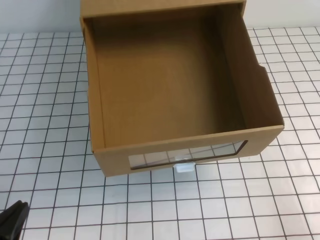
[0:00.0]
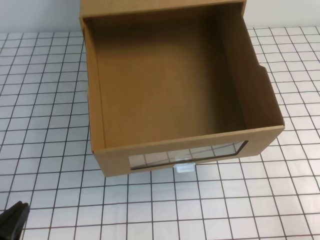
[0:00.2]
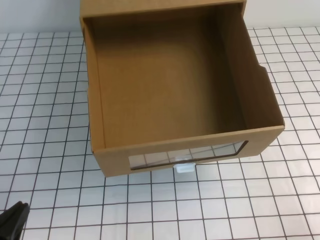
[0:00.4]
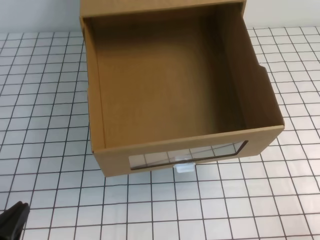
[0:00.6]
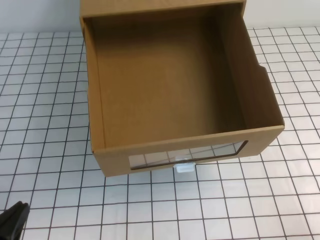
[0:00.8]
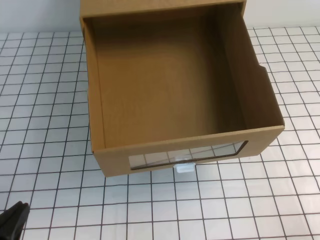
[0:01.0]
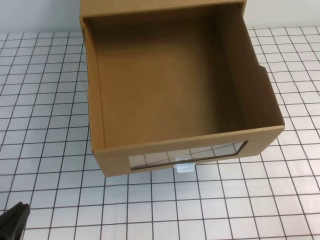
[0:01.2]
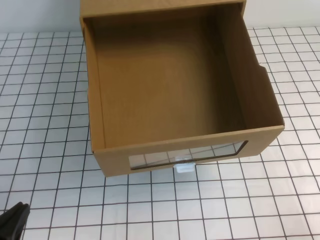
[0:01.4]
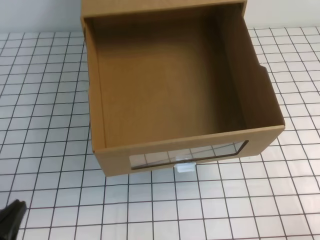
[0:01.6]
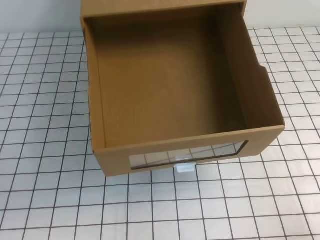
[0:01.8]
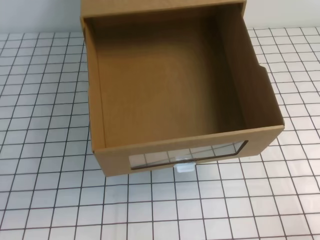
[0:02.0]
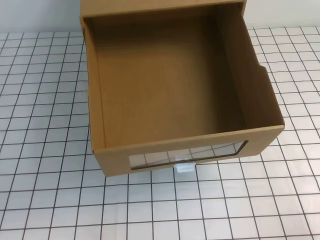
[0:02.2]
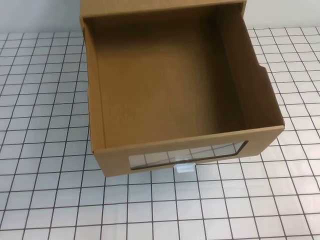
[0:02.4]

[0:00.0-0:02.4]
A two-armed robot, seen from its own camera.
Task of the whole recording: open the shoebox on the white tablecloth.
Step, 0.0 to 2.4 s: Open the shoe box.
1.2 to 2.4 s: There are only small adjustments of the grippers.

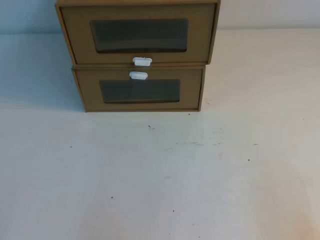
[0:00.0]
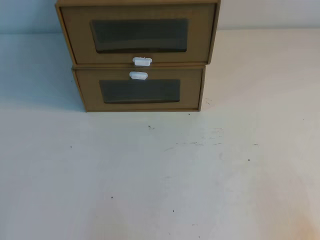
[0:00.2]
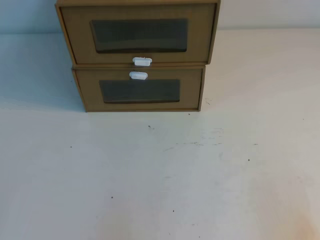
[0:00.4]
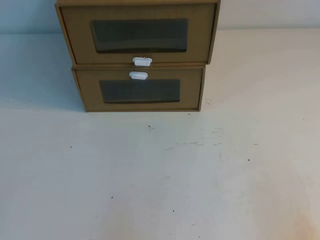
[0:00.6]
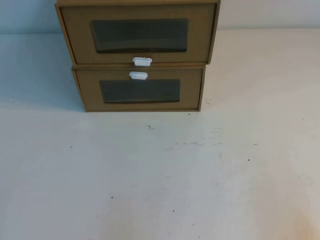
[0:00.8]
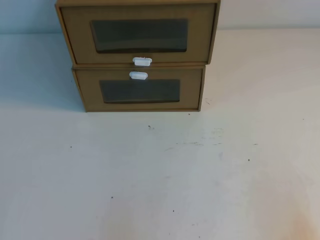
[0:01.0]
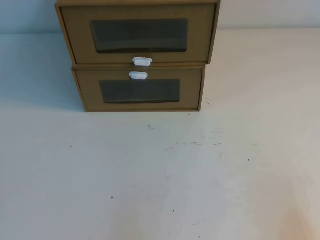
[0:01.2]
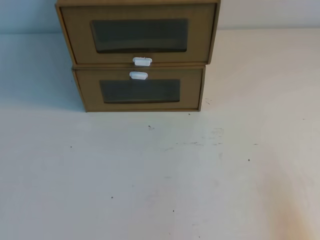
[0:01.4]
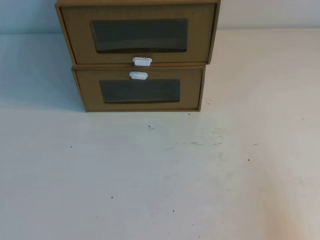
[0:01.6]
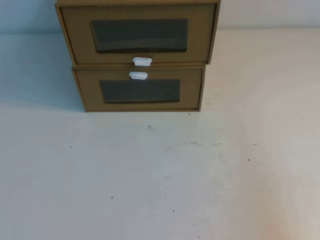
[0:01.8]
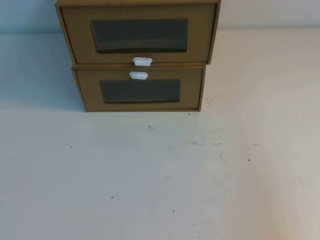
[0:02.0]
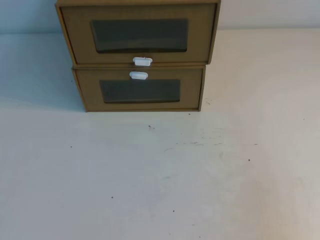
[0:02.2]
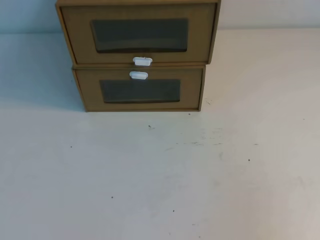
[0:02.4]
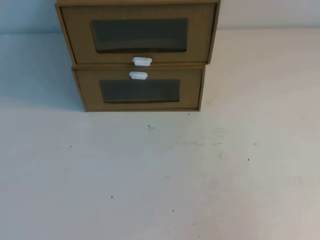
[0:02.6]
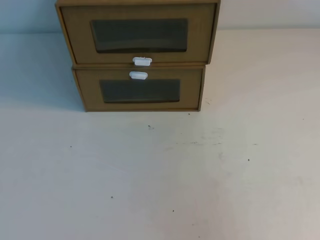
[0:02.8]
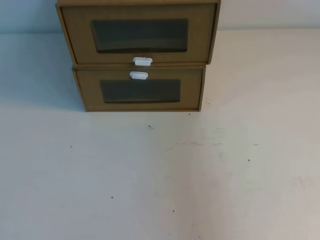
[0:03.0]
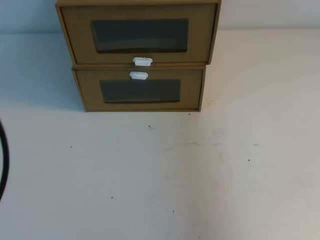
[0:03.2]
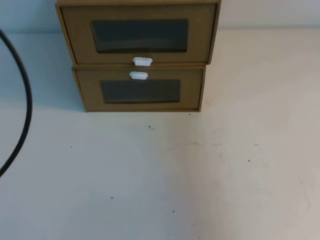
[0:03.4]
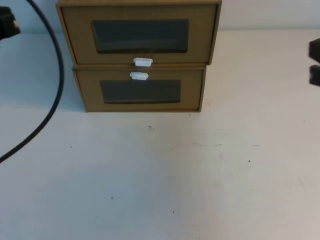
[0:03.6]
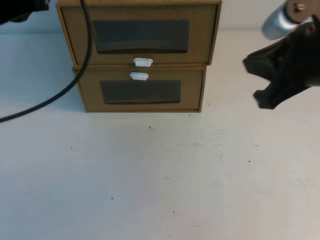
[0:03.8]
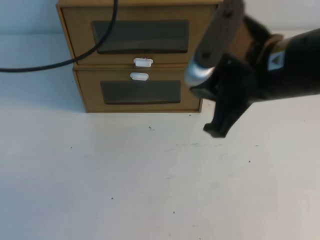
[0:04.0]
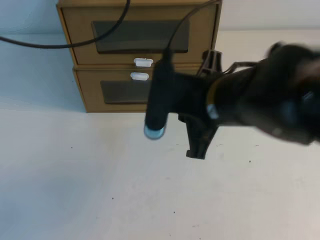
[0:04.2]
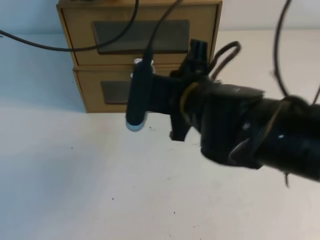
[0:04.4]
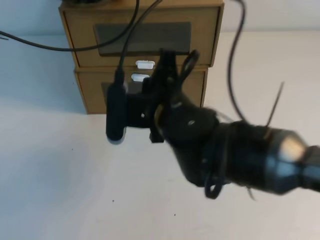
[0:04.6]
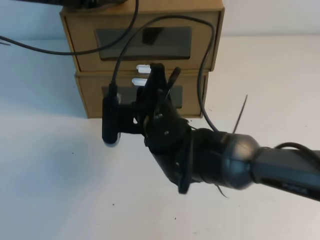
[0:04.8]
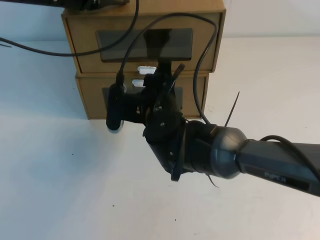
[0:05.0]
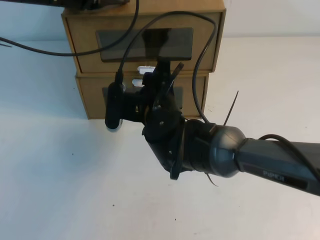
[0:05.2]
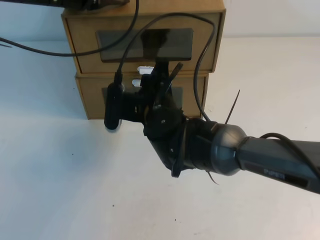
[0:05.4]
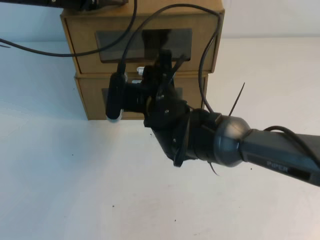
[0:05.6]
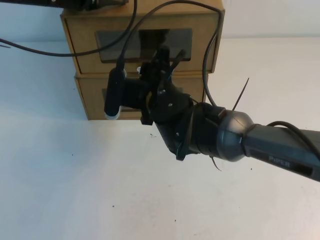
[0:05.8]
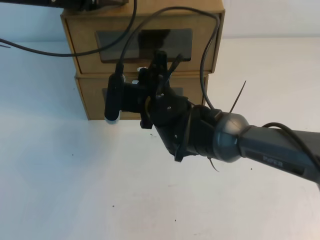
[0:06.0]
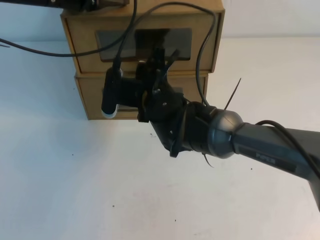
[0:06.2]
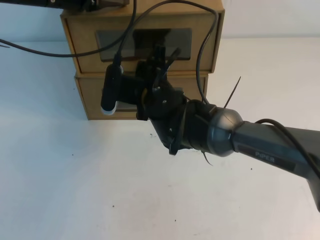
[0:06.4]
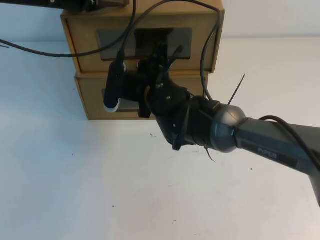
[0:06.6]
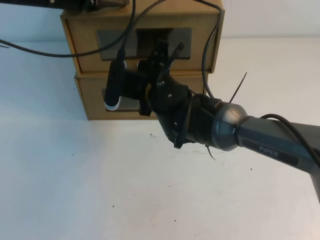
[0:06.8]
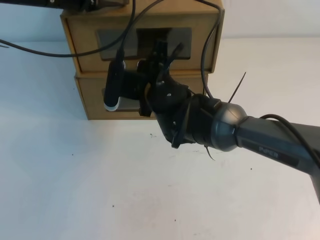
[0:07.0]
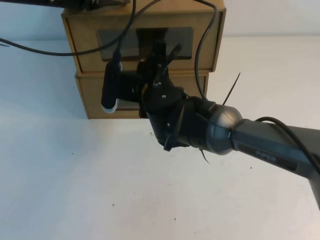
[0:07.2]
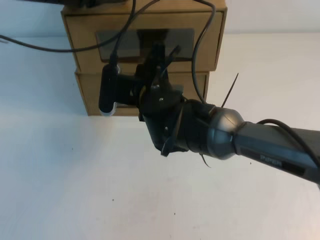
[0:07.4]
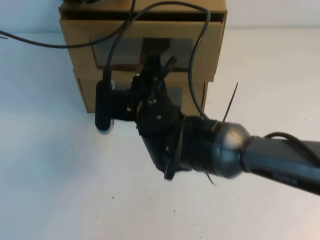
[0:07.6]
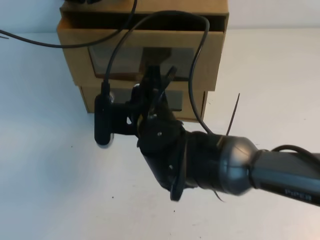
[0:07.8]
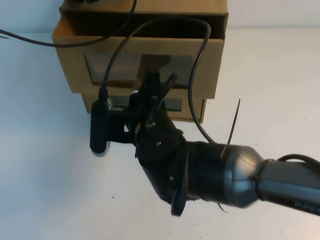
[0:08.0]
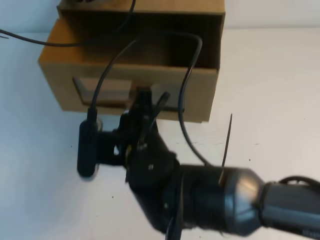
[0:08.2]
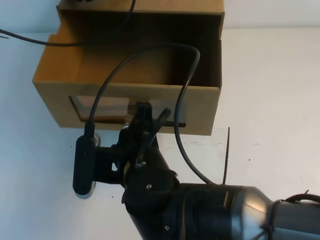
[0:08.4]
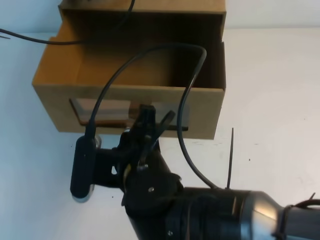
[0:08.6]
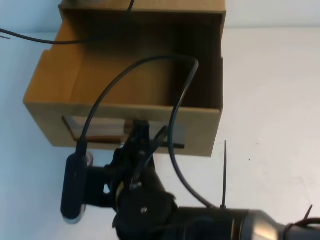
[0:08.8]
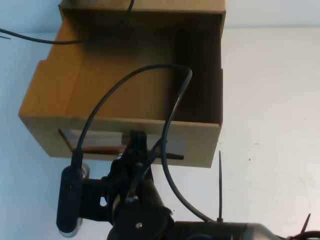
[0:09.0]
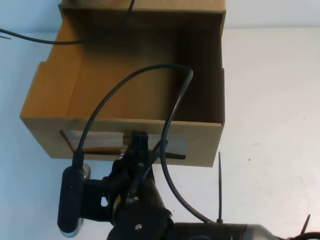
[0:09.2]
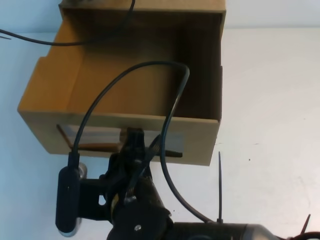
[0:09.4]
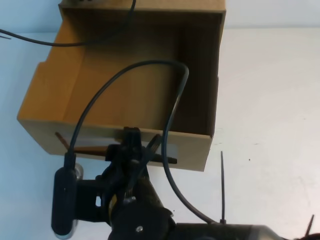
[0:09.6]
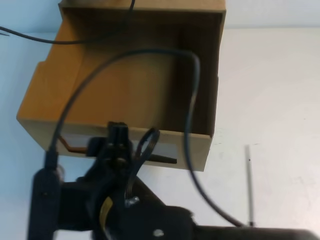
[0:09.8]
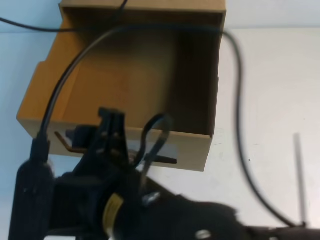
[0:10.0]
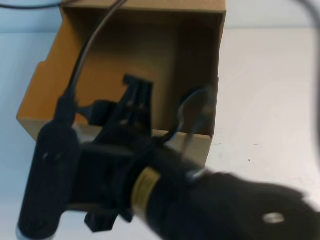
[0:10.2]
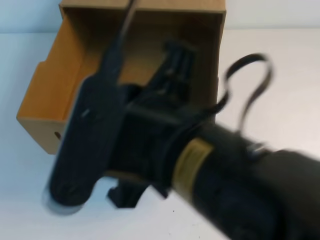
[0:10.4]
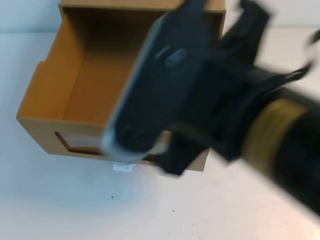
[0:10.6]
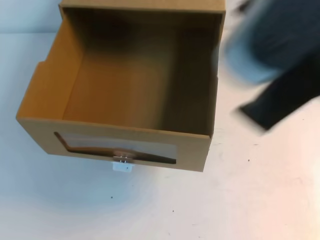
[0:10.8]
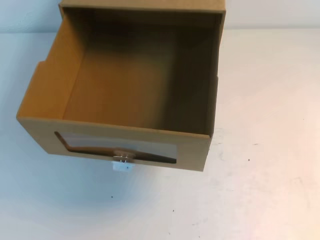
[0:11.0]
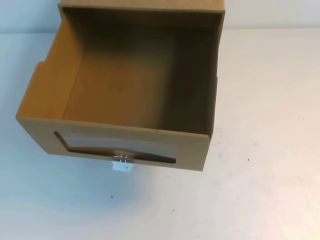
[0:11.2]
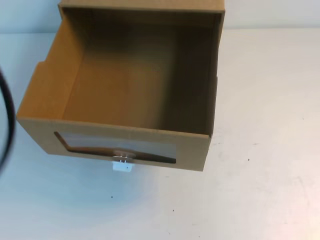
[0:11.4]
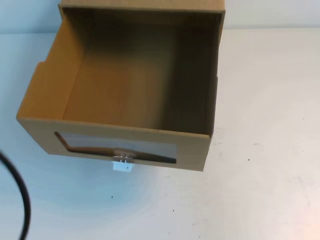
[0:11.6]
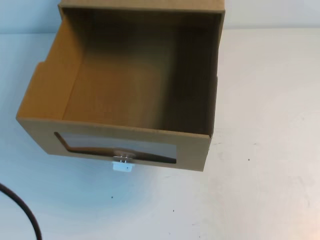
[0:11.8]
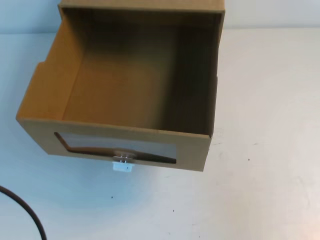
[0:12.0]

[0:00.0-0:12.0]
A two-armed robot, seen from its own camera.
Task of the whole recording: open the shoebox on the table.
1.6 to 3.0 s: The grippers both shift upward by about 20 cm.
3.0 to 4.4 s: The right gripper goes some 35 cm to the left, forward and downward. The left gripper travels forward by approximately 40 cm.
4.4 to 6.0 s: The right gripper travels forward, downward and to the left by about 15 cm, and opens.
6.0 to 7.6 s: The right gripper closes up.
7.6 to 9.0 s: The right gripper heads backward, covering some 15 cm.
9.0 to 10.4 s: The right gripper travels upward and to the right by about 15 cm, and opens, then closes again; the left gripper moves upward and backward, roughly 20 cm.
10.4 to 12.0 s: The left gripper heads backward and downward, covering approximately 30 cm. Meanwhile the right gripper moves to the right, some 30 cm, and closes its fingers.

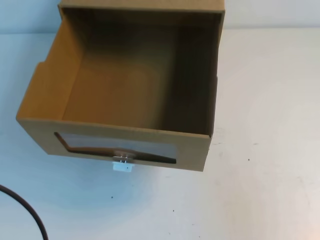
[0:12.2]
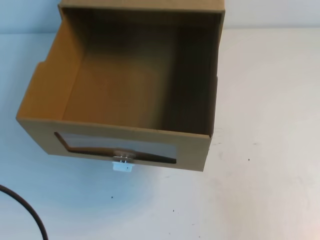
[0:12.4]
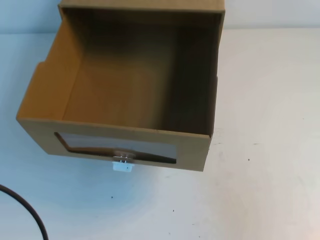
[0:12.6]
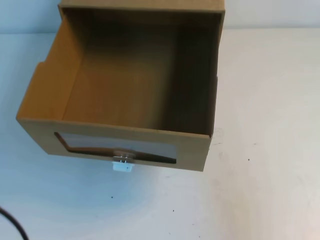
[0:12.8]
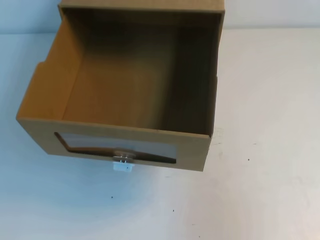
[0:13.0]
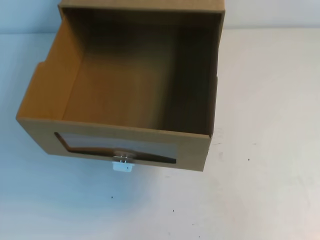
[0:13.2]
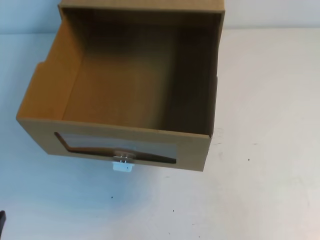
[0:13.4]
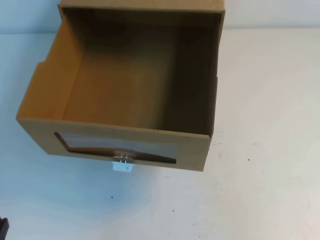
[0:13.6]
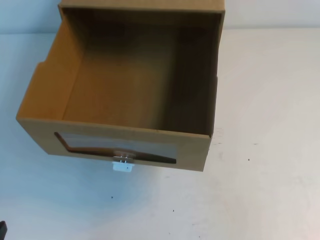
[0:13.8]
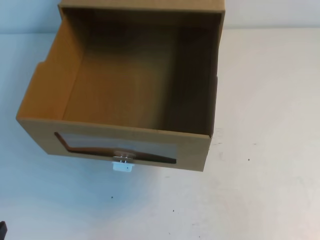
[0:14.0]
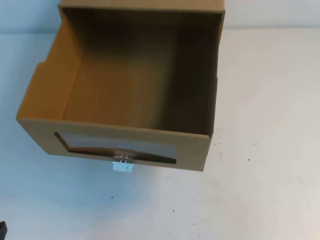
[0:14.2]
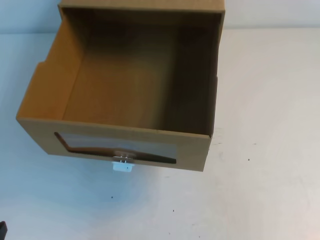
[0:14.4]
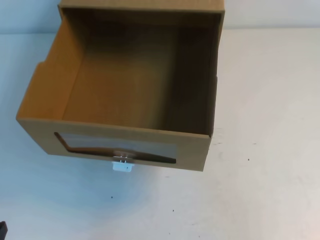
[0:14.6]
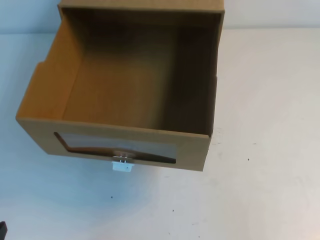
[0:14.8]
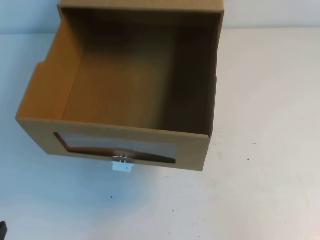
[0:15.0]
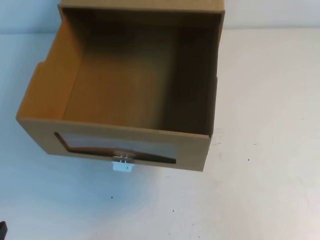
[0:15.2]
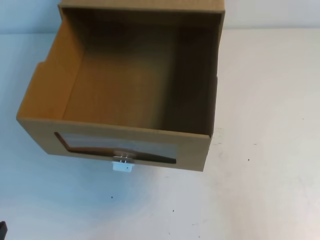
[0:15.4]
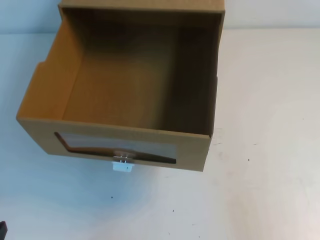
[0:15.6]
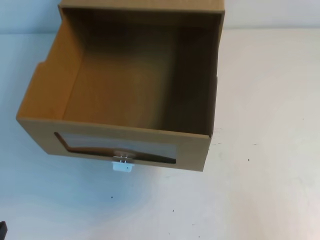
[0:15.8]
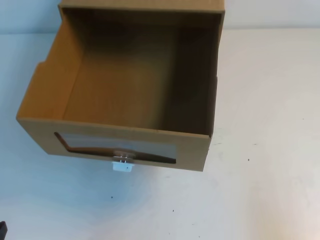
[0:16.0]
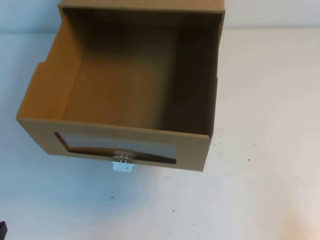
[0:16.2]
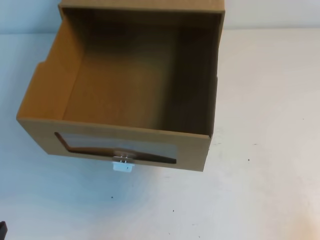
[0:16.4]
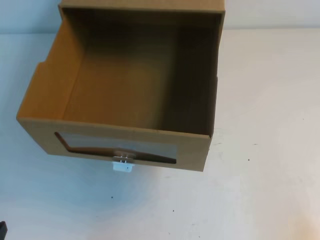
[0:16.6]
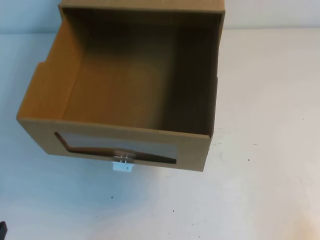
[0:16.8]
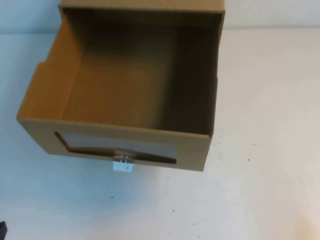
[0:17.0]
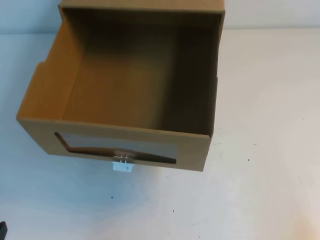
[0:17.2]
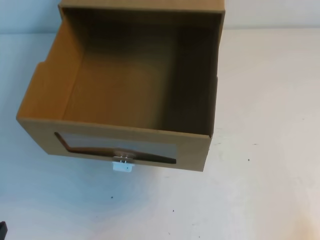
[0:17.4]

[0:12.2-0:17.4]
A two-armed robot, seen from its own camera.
Task of the whole recording: open the shoebox on the table.
Step, 12.2 to 17.4 s: Open the shoe box.
12.2 to 14.0 s: The left gripper goes some 15 cm downward.
15.6 to 17.4 s: The right gripper goes some 15 cm downward.

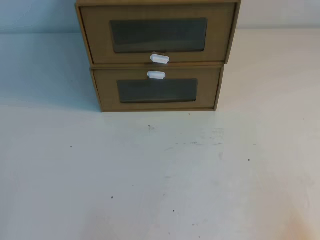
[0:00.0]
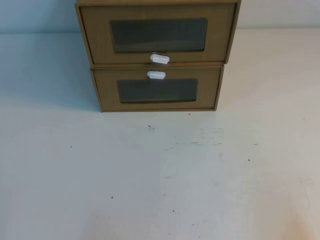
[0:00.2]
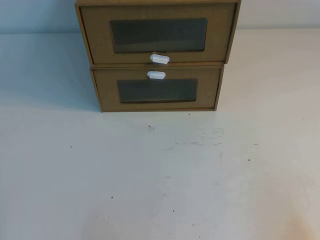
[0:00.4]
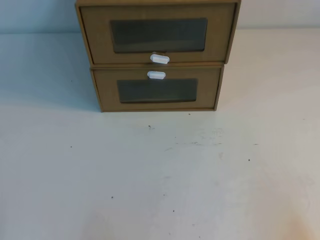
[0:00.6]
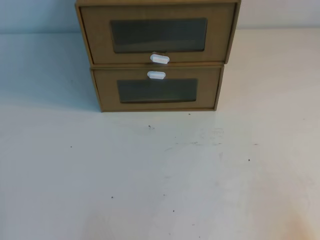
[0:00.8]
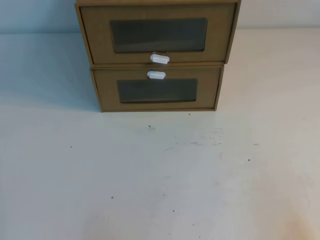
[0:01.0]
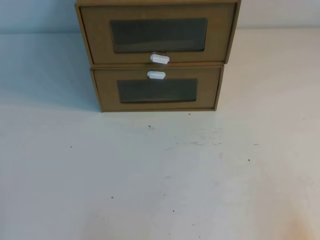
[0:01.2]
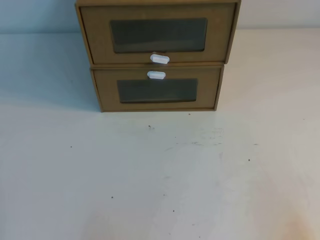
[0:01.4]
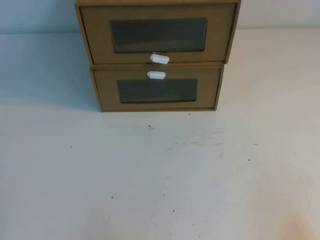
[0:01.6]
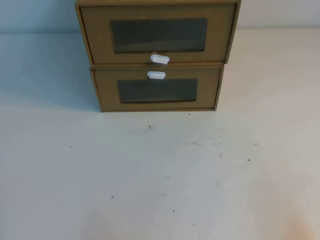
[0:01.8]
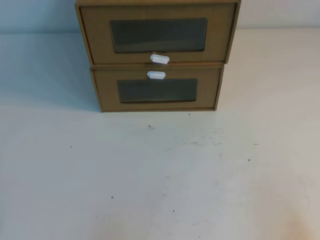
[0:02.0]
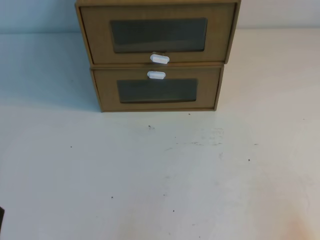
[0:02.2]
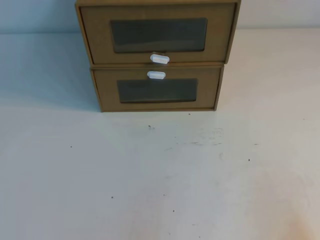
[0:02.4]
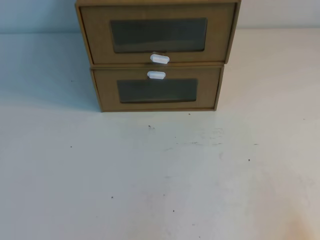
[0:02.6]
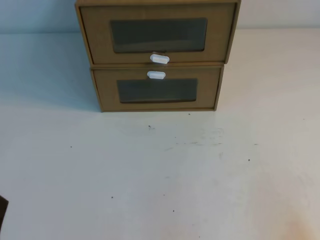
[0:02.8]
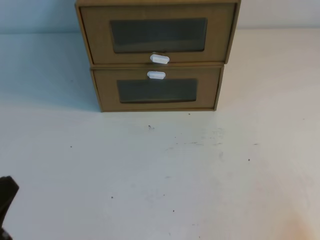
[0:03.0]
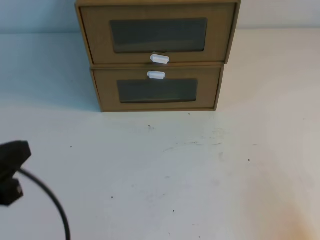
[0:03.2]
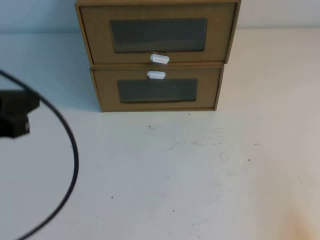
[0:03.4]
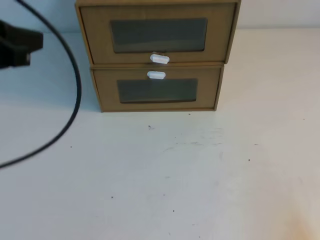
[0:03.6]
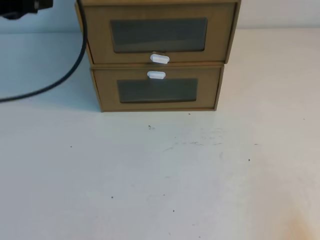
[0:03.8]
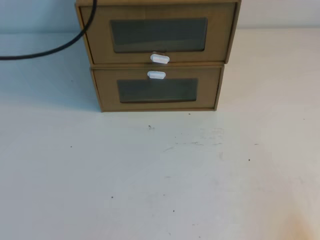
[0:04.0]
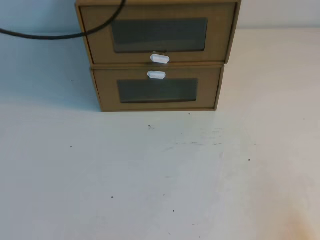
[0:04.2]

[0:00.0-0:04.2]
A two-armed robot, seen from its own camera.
Task of the whole recording: open the shoebox on the table.
0.0 to 1.4 s: Both grippers stay about where they are.
2.8 to 4.2 s: The left gripper is displaced forward and upward by approximately 40 cm.
